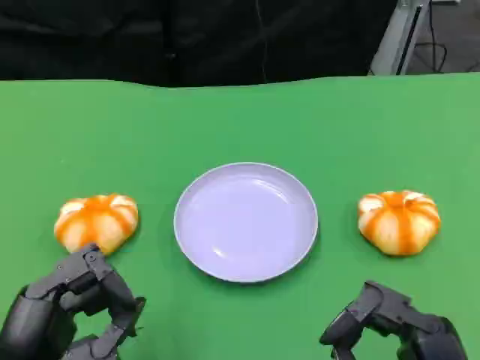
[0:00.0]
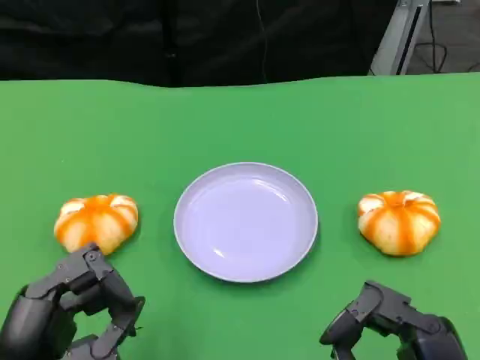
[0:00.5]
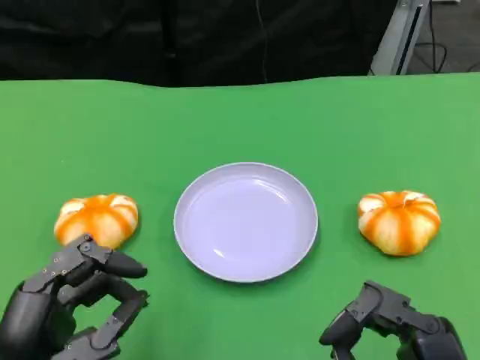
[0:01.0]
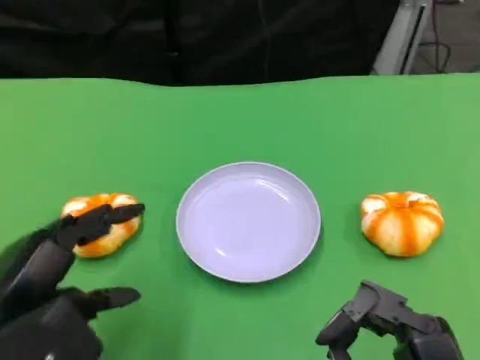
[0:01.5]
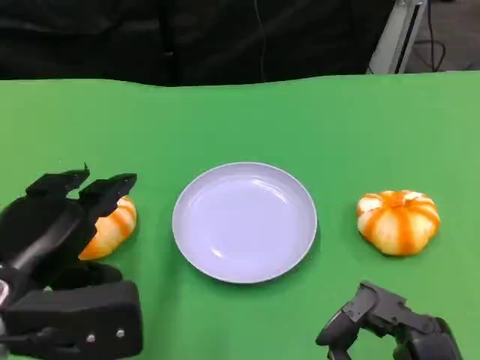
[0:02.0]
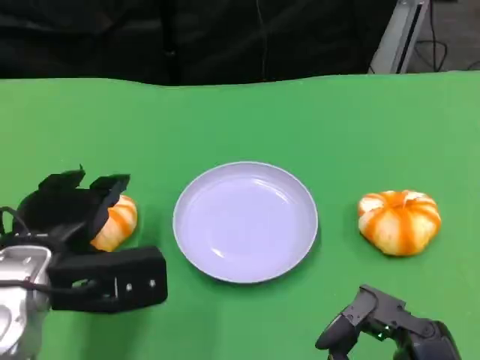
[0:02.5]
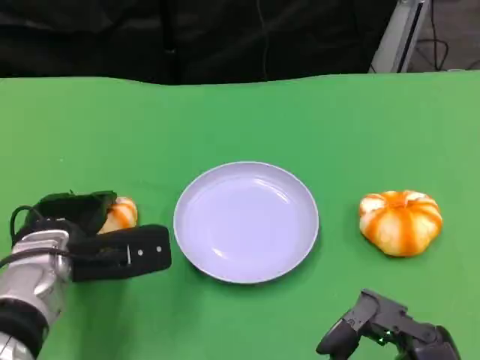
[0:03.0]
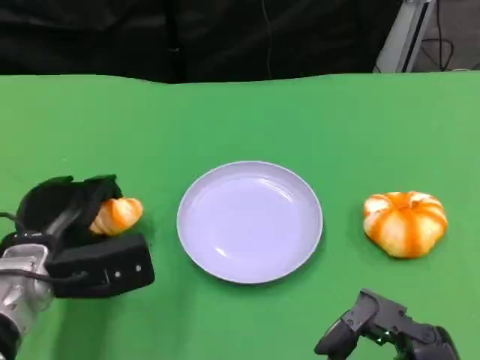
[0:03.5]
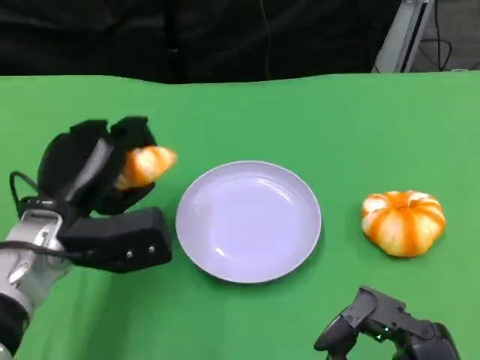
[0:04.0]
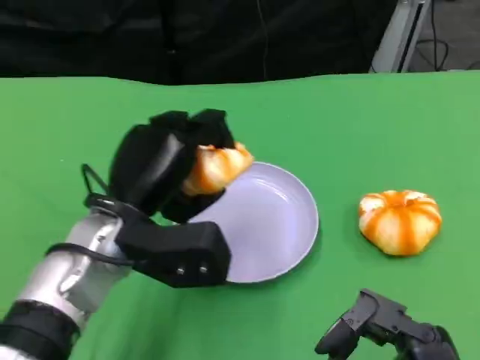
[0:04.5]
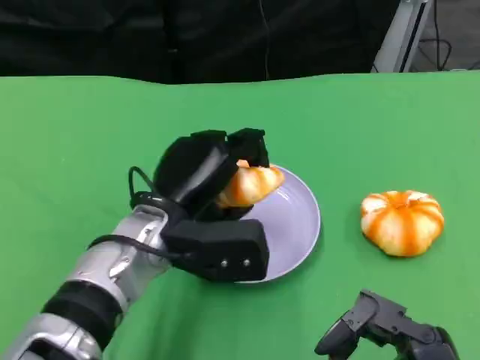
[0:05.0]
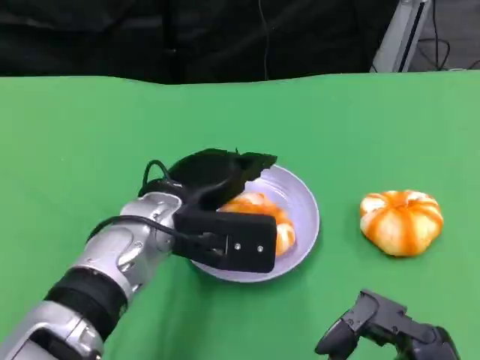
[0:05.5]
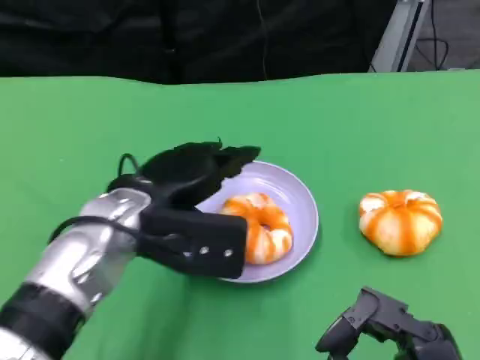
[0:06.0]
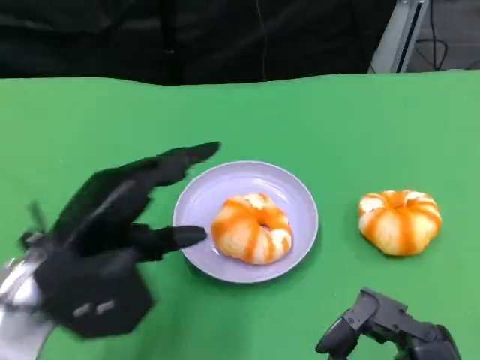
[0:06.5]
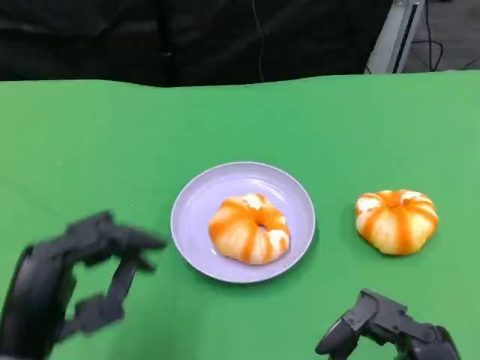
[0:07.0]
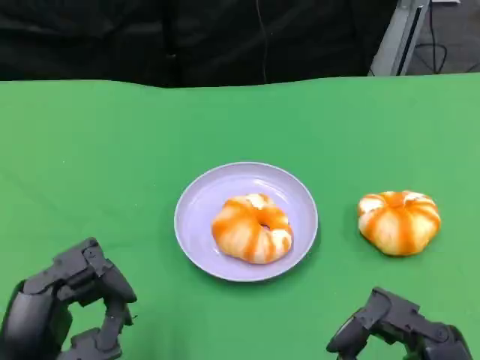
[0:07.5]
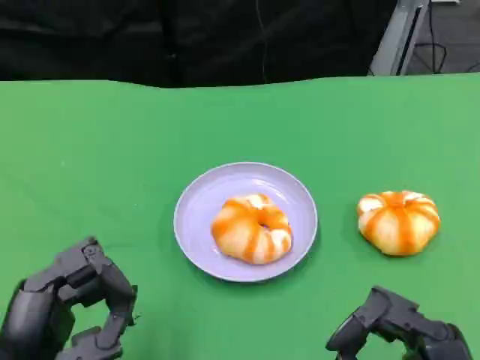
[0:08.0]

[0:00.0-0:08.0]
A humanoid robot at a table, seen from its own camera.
Task of the whole recording: Grasp the bread from the table and place it into the plate.
0:00.0 to 0:02.0: The left hand travels forward and upward by approximately 10 cm.
0:02.0 to 0:04.0: The left hand moves forward, roughly 10 cm.
0:04.0 to 0:06.0: The left hand travels to the right by some 5 cm.
0:06.0 to 0:08.0: The left hand shifts about 20 cm backward and to the left.

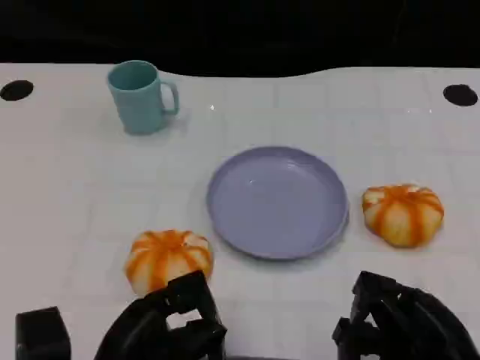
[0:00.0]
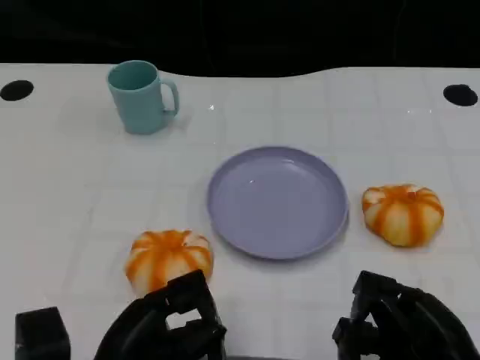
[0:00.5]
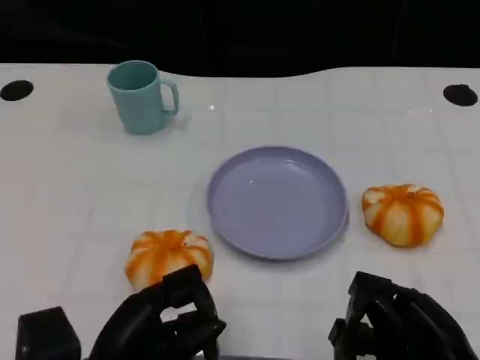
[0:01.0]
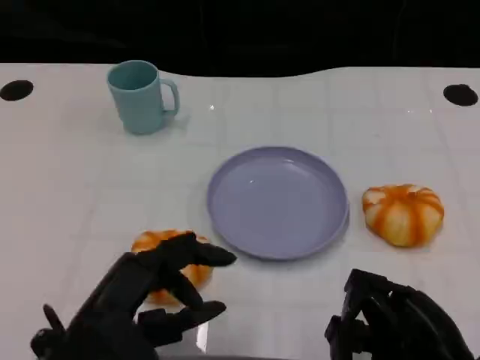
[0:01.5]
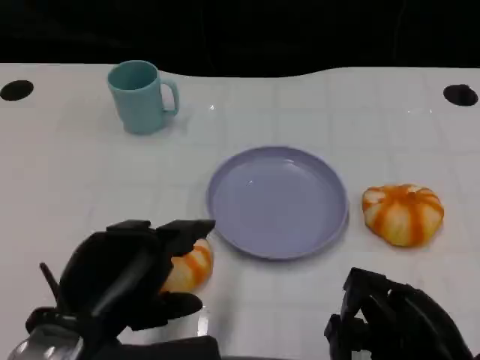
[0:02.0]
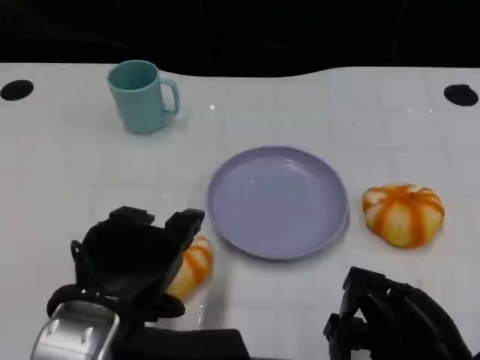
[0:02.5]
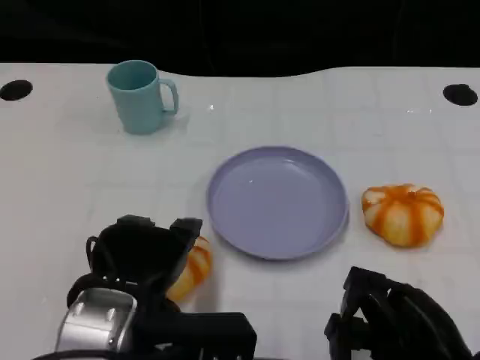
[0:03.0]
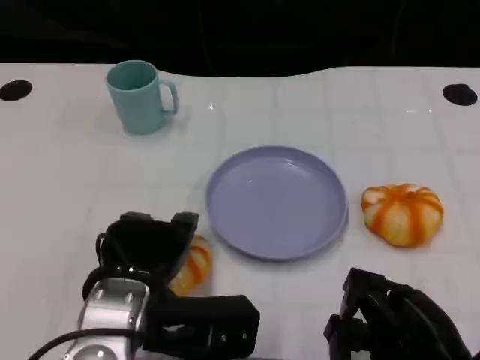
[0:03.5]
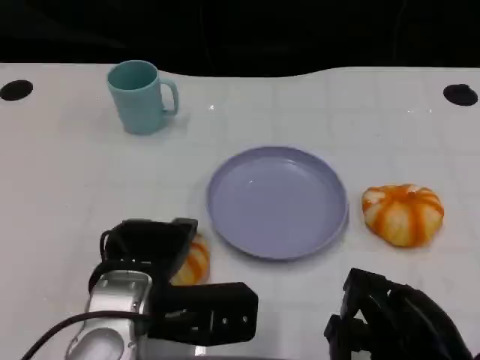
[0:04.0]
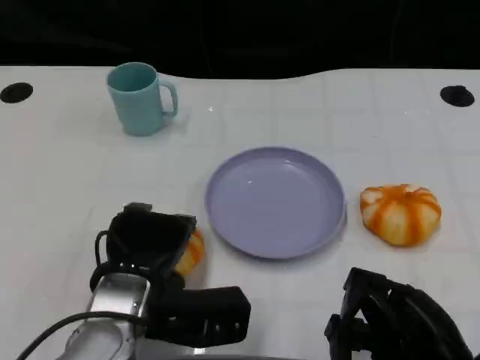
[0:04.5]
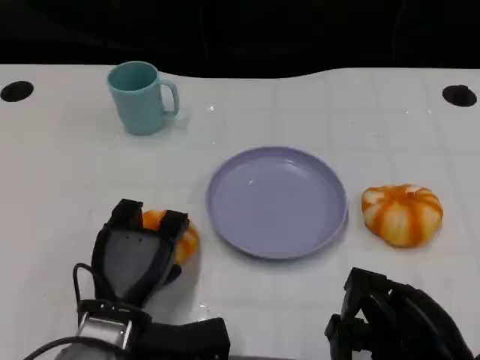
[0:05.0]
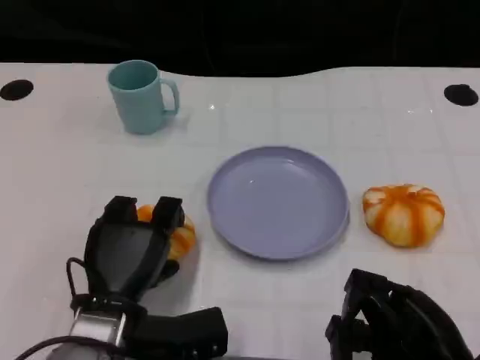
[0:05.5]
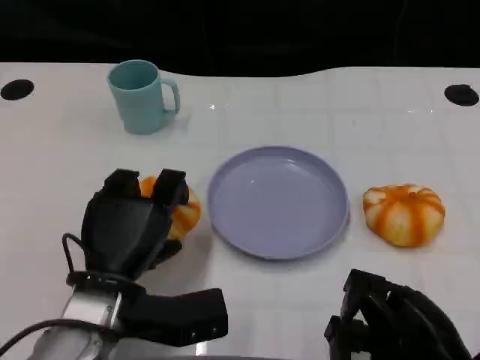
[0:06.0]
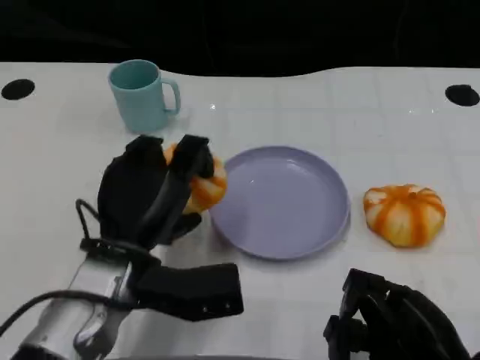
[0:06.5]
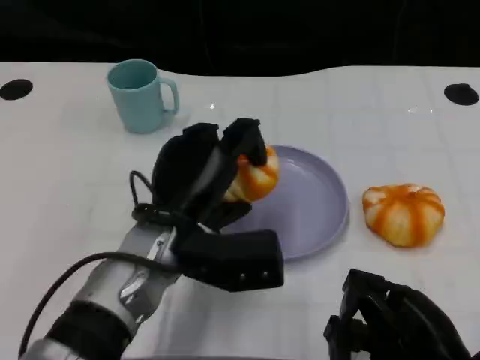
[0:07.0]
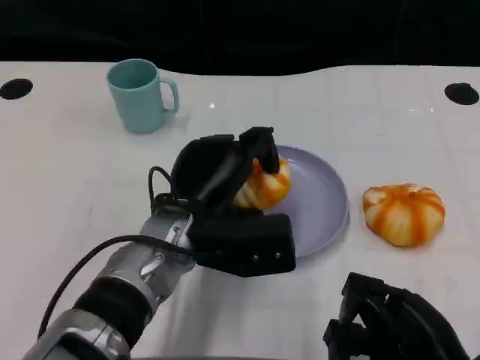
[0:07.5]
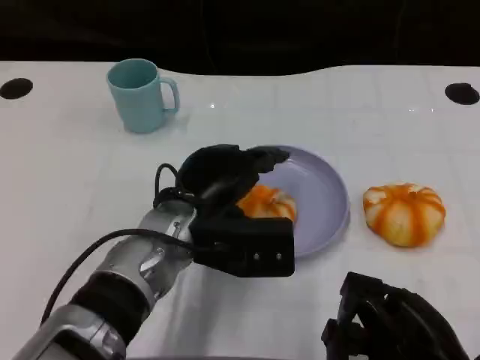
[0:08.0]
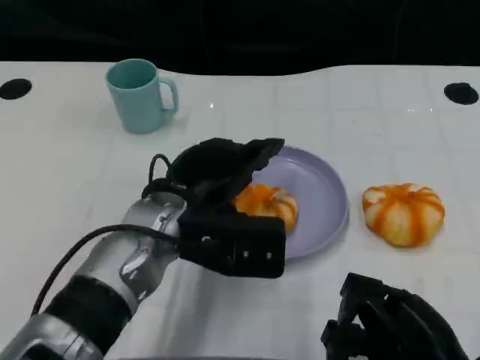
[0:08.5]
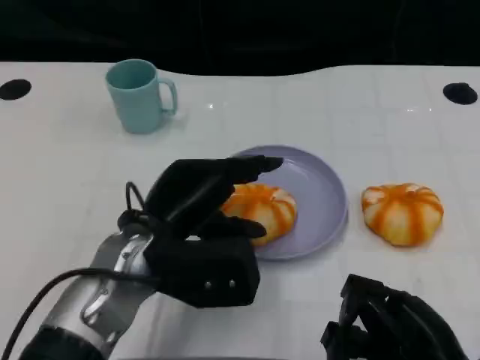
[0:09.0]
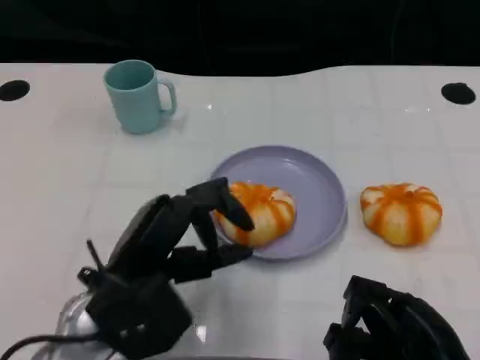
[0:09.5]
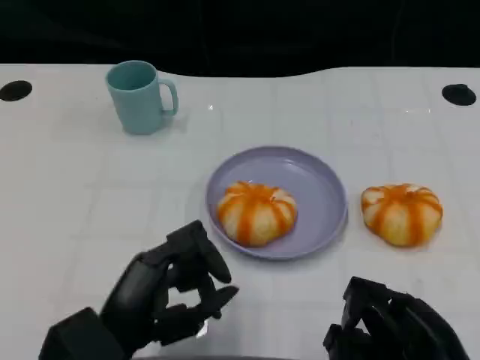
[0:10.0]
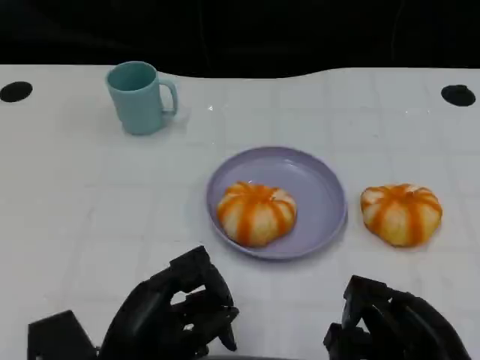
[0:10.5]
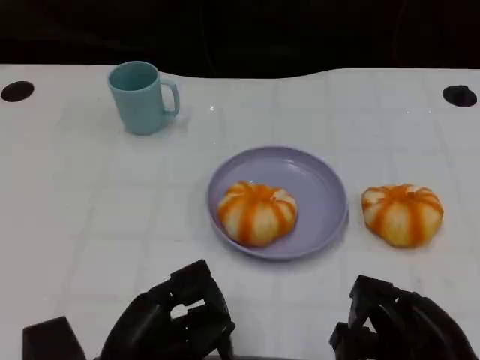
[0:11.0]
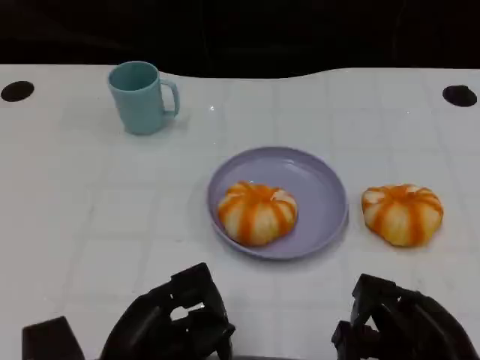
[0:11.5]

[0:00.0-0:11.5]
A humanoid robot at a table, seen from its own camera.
Task of the whole recording: Grasp the bread from the table and place it into the plate.
0:00.0 to 0:02.0: The left hand shifts some 10 cm upward.
0:02.0 to 0:04.0: The left hand moves forward and downward, some 10 cm.
0:06.0 to 0:07.5: The left hand travels to the right by roughly 5 cm.
0:07.5 to 0:09.5: The left hand travels to the left and backward by roughly 10 cm.
0:09.5 to 0:11.5: The left hand moves backward, about 5 cm.

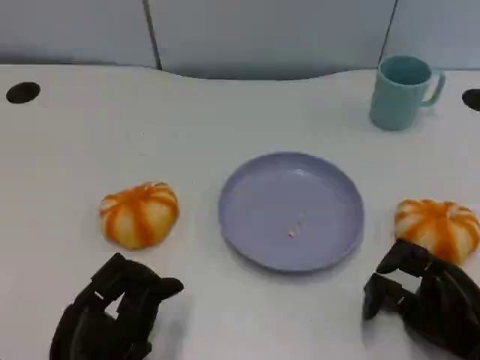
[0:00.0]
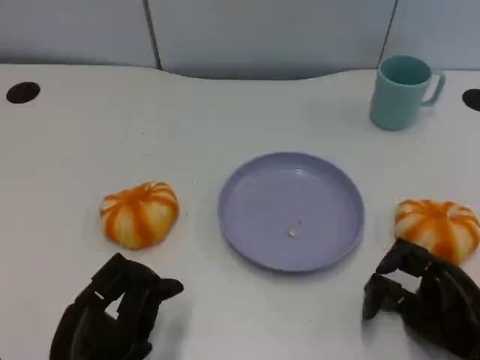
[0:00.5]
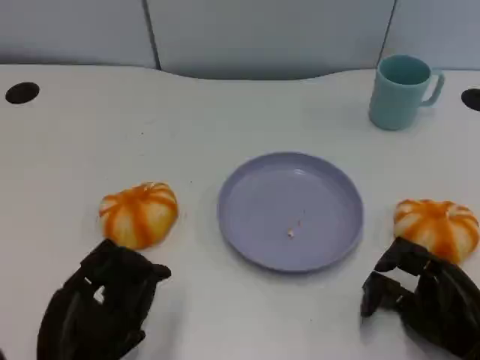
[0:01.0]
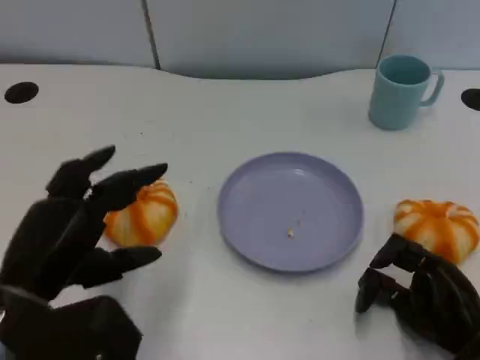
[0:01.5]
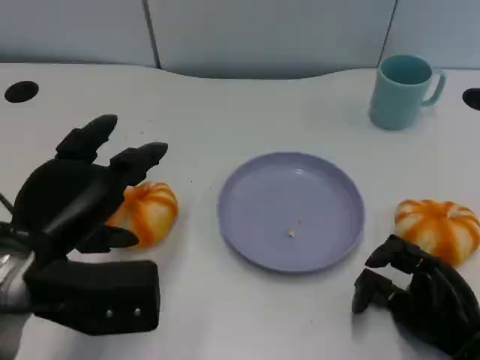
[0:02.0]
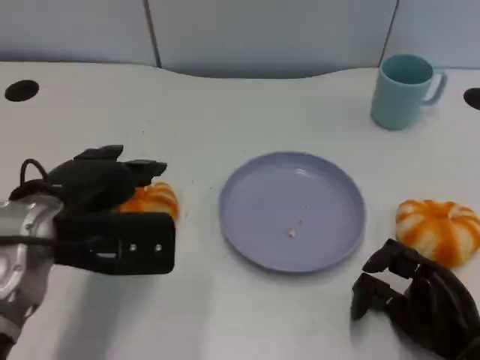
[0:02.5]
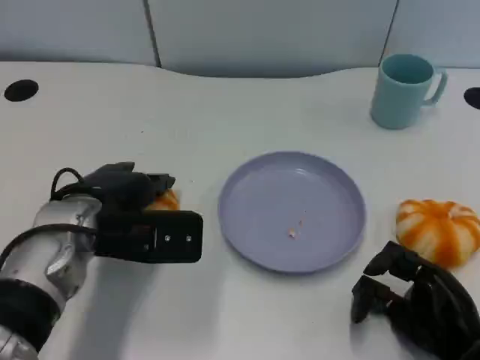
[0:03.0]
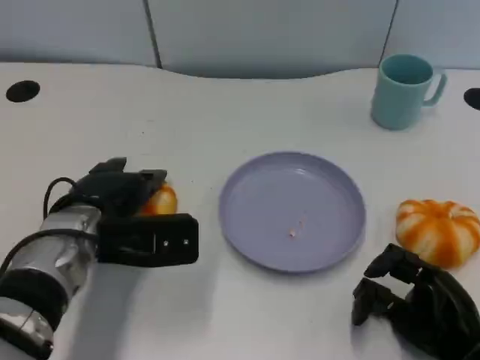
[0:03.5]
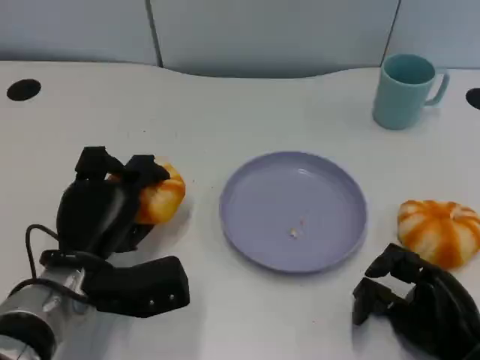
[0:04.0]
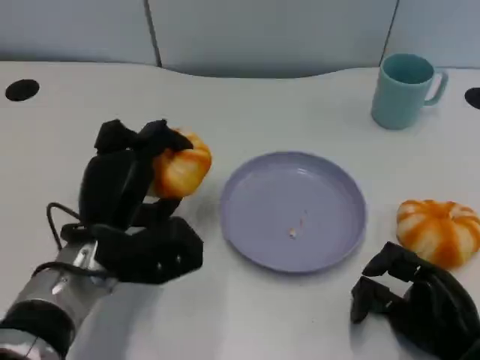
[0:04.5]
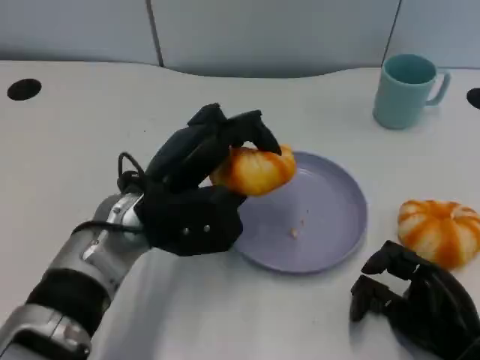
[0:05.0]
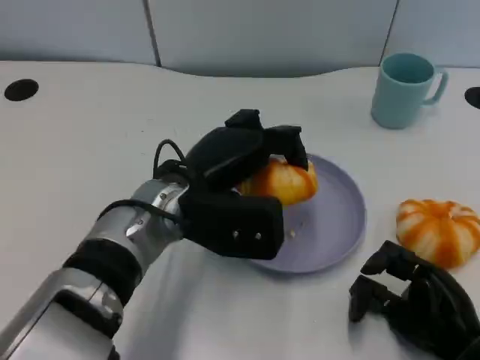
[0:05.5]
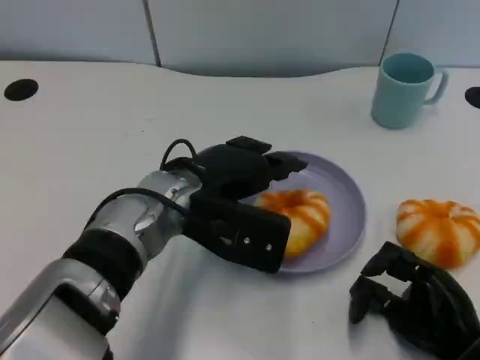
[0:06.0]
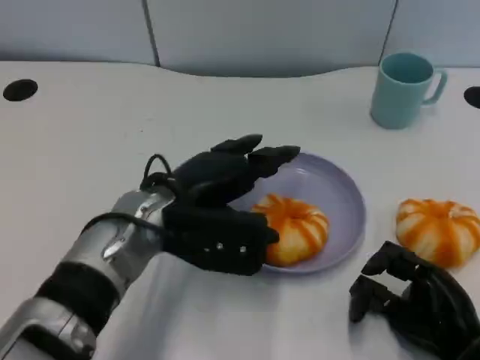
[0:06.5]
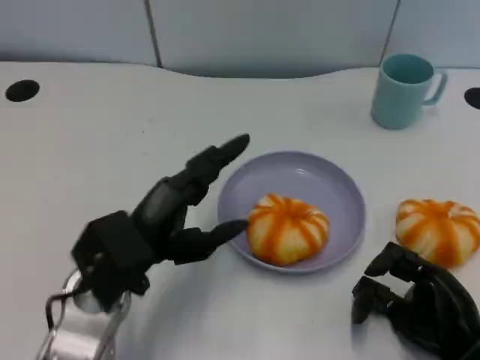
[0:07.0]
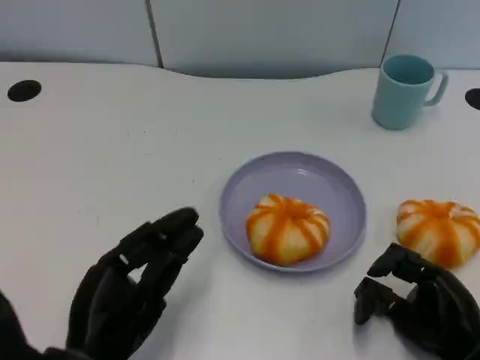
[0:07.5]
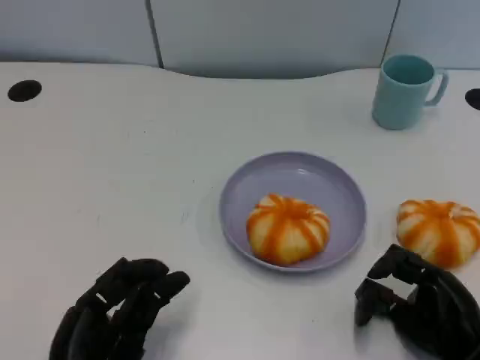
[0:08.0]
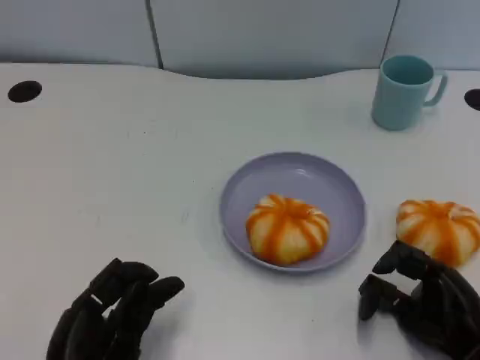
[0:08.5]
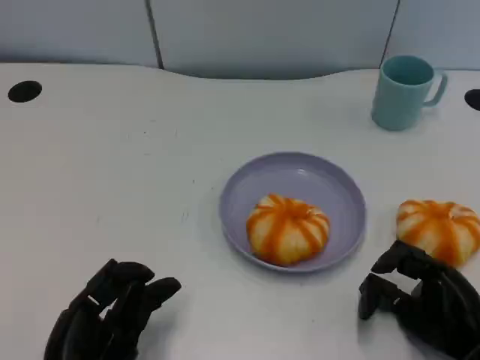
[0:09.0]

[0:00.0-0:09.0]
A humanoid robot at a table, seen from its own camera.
Task of the whole recording: Grasp the bread from the table and place it into the plate.
0:00.0 to 0:02.0: The left hand travels upward and forward by approximately 15 cm.
0:02.0 to 0:04.5: The left hand goes approximately 10 cm to the right, downward and forward.
0:04.5 to 0:07.0: The left hand moves backward, about 5 cm, and goes to the right and returns, roughly 5 cm each way.
0:07.0 to 0:09.0: The left hand moves backward and downward, approximately 10 cm.
